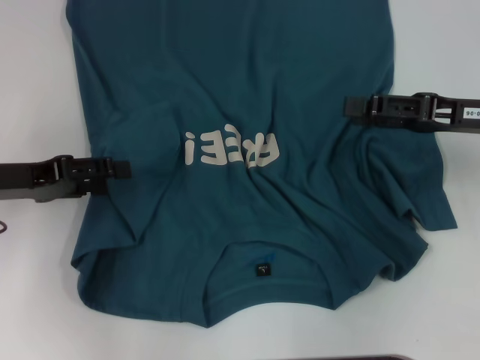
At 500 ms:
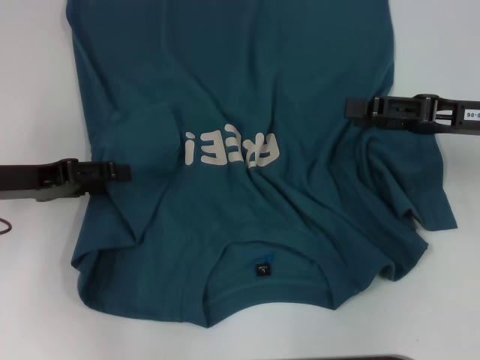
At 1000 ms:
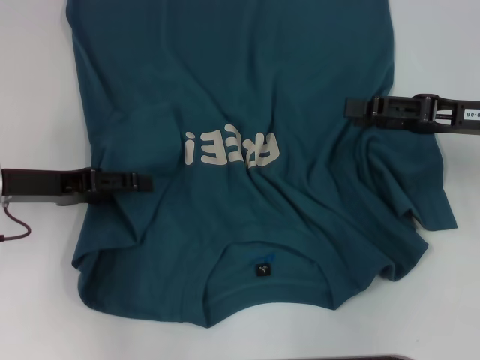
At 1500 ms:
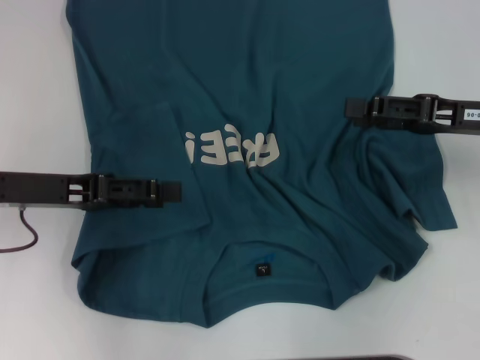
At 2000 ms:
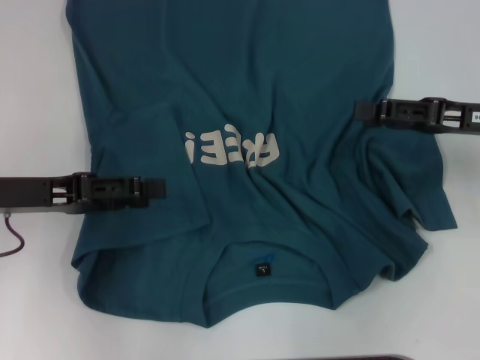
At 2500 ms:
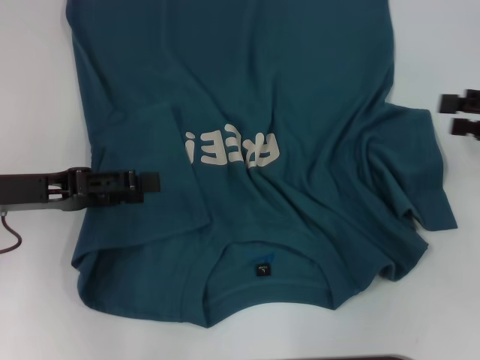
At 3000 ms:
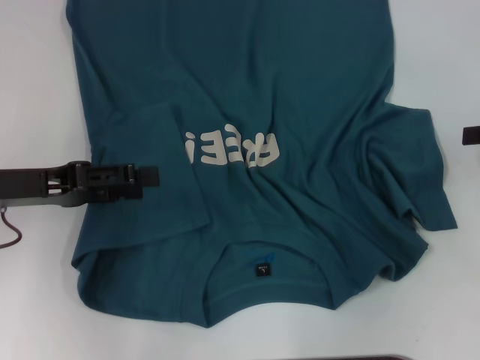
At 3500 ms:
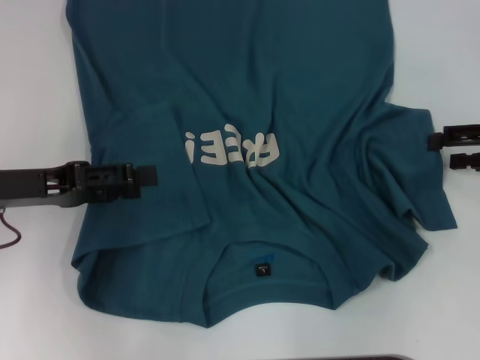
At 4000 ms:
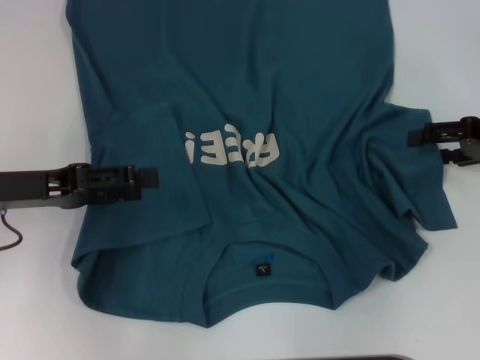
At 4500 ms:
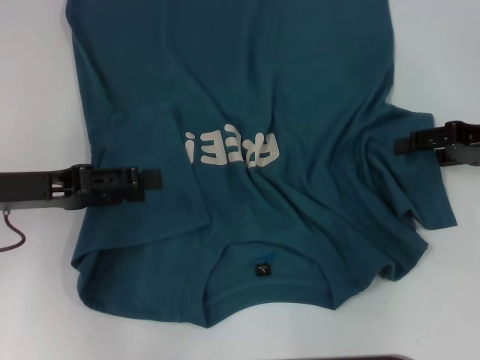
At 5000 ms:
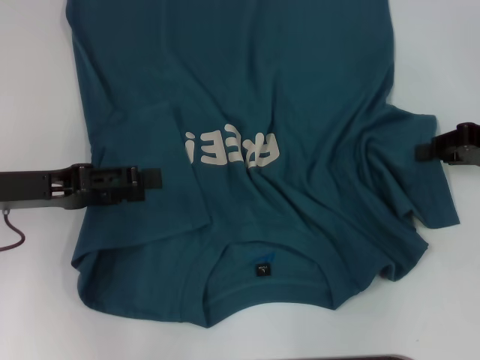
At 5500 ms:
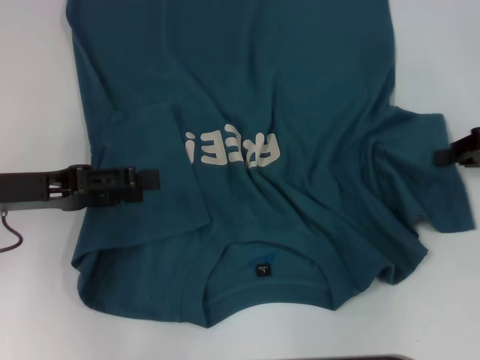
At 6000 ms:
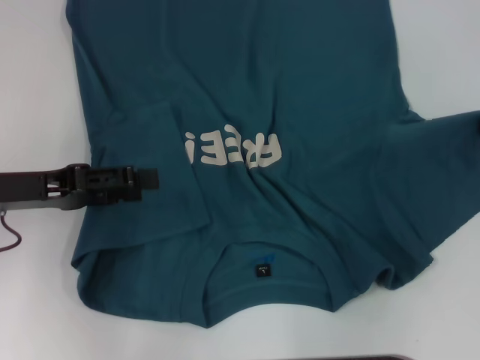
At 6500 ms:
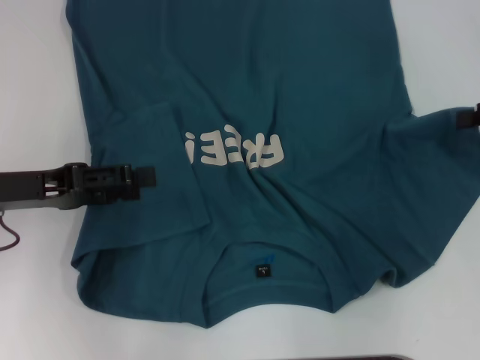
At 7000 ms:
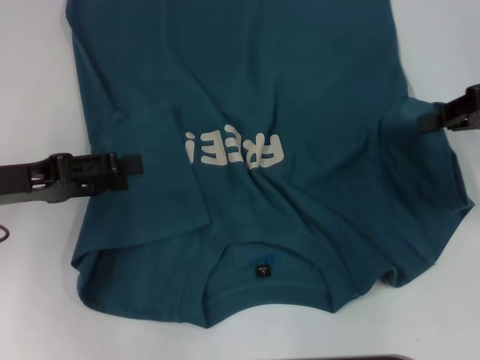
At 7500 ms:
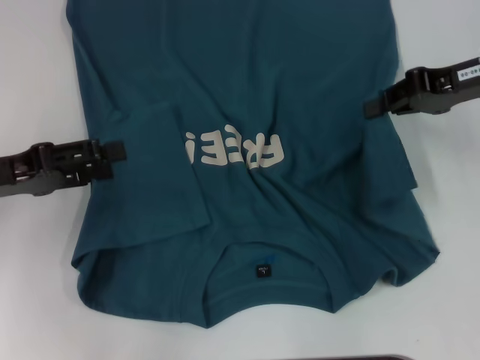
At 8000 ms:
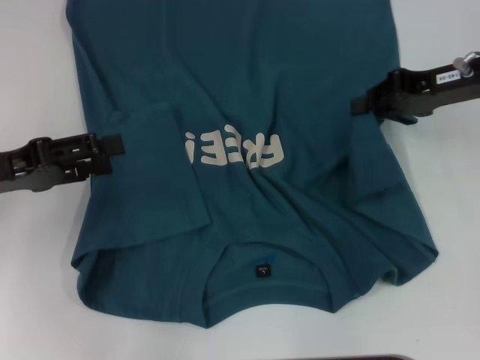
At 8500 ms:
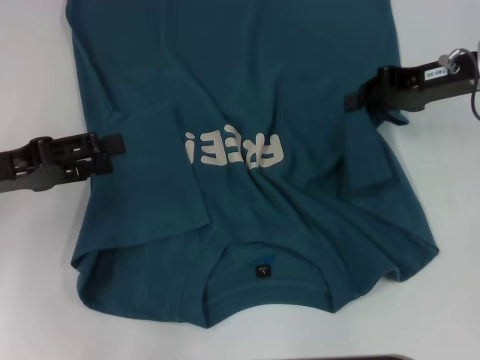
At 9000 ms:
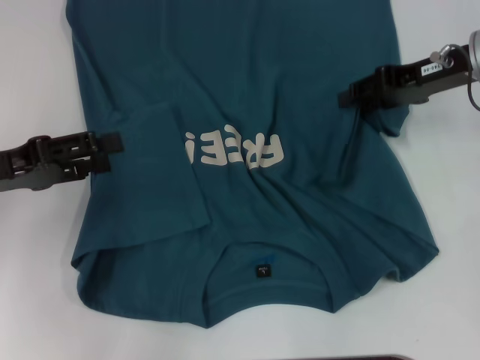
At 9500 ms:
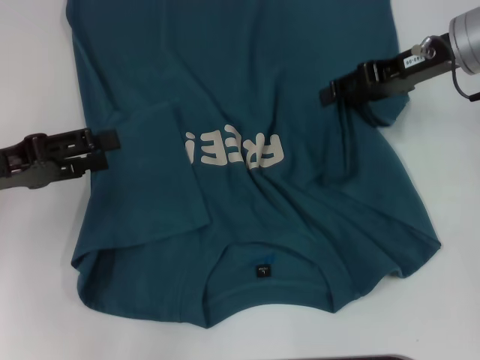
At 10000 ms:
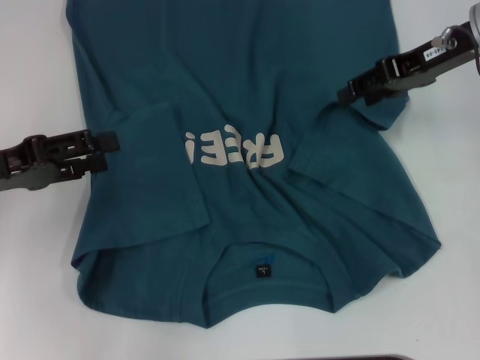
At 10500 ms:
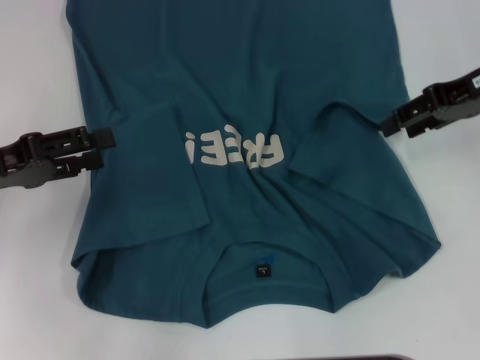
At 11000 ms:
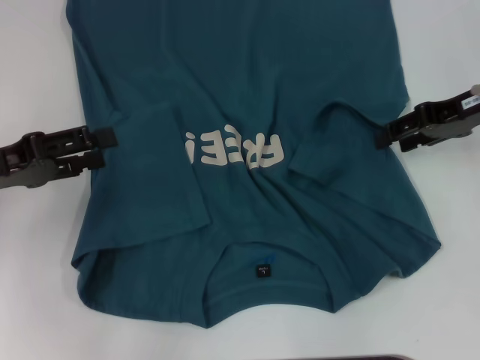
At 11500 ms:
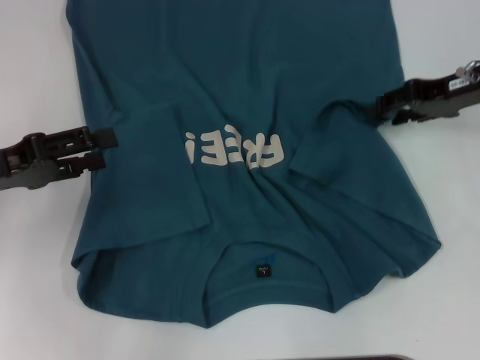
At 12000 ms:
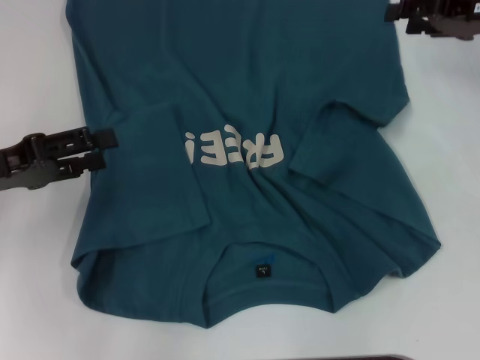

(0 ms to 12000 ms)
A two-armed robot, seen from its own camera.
0 ms - 2000 ms: The grippers stay close to where they were, moving slightly.
2000 ms - 4000 ms: The right gripper moves to the right, about 5 cm.
4000 ms - 6000 ms: The right gripper ends up about 5 cm from where it was, and closes up.
6000 ms - 8000 ms: The right gripper travels to the left and forward by some 15 cm.
8000 ms - 10000 ms: The right gripper changes place by roughly 5 cm, and opens.
10000 ms - 12000 ms: The right gripper heads to the right, covering some 5 cm.

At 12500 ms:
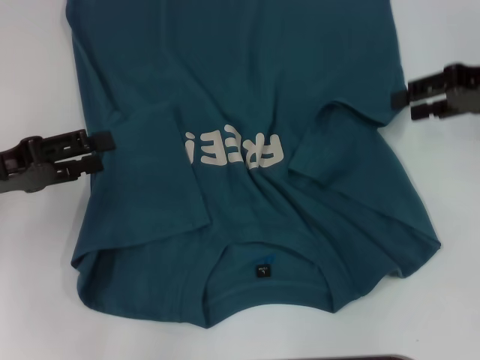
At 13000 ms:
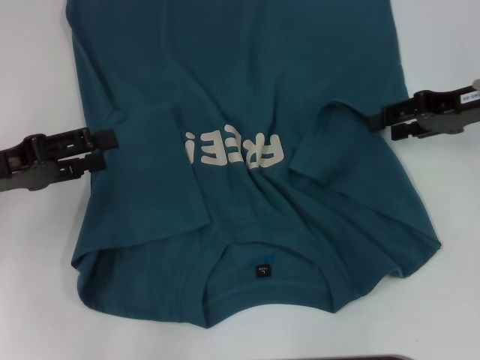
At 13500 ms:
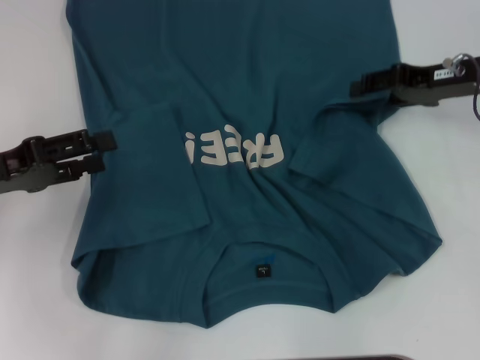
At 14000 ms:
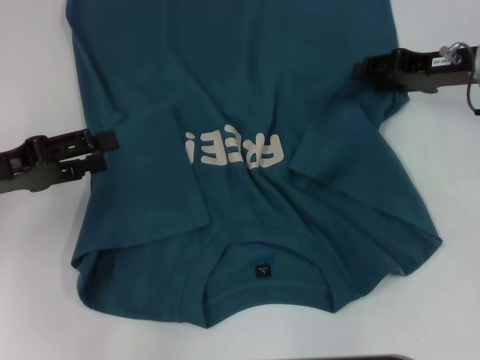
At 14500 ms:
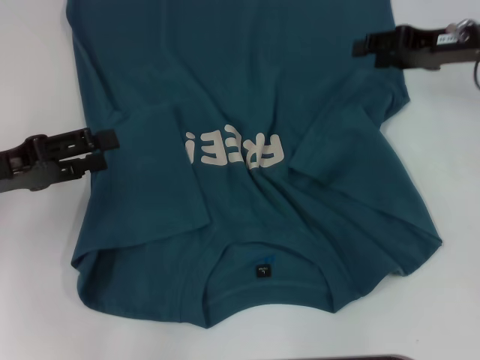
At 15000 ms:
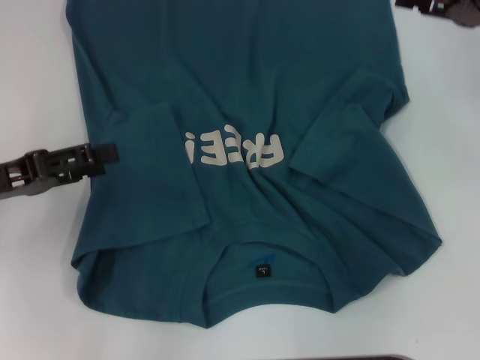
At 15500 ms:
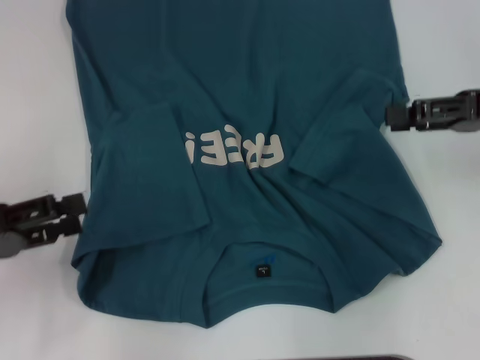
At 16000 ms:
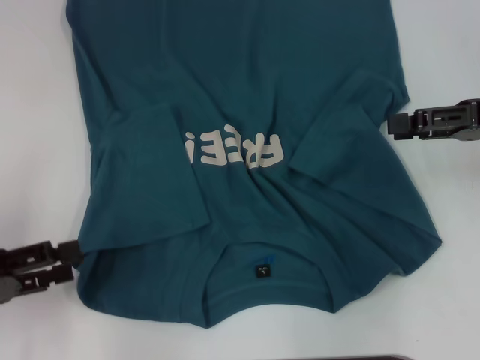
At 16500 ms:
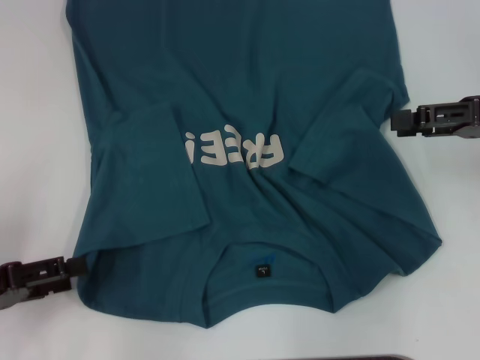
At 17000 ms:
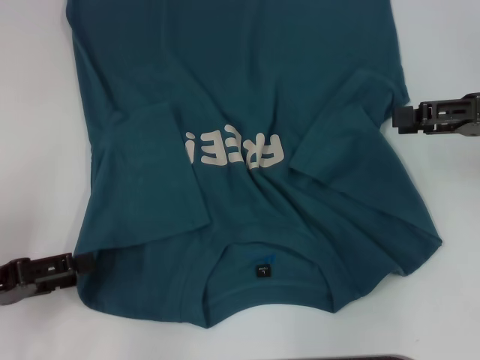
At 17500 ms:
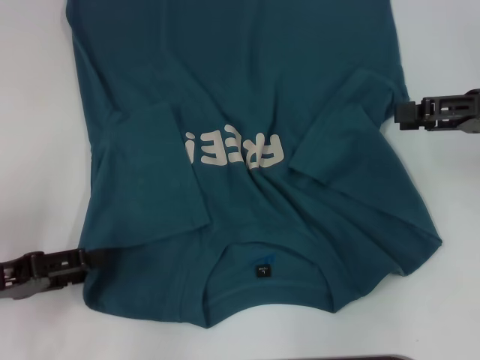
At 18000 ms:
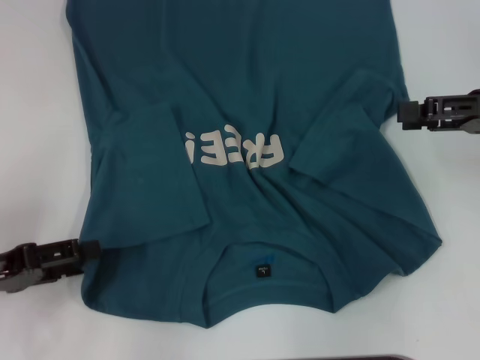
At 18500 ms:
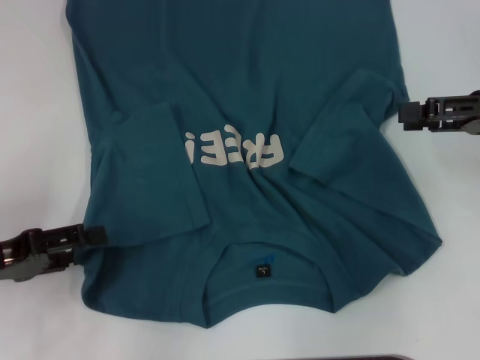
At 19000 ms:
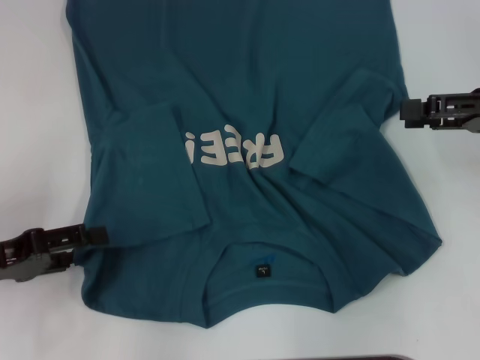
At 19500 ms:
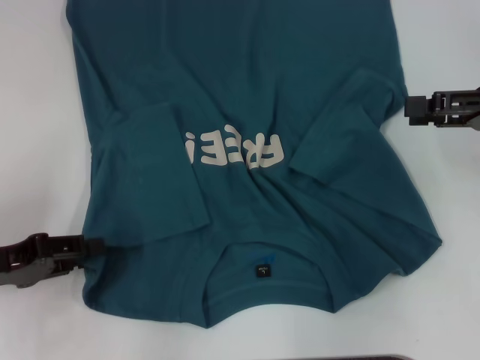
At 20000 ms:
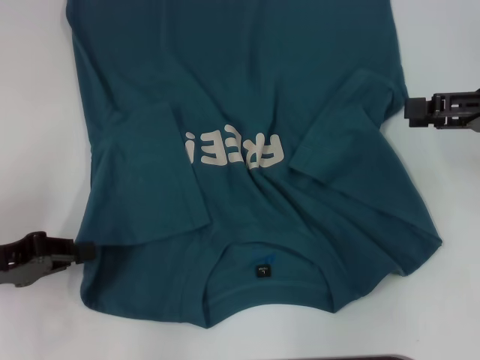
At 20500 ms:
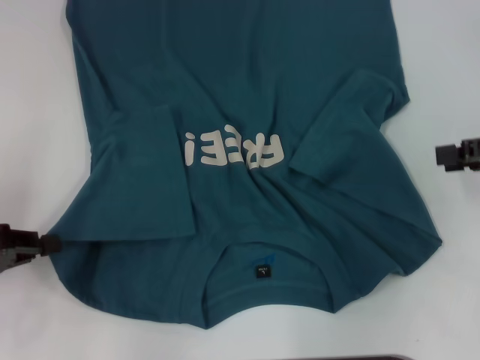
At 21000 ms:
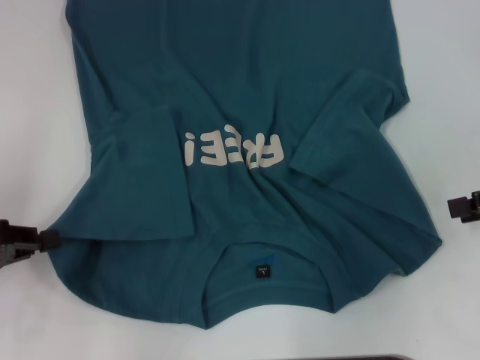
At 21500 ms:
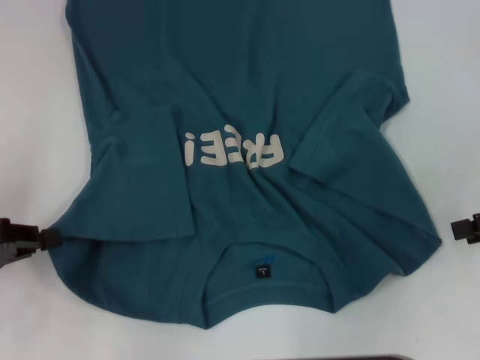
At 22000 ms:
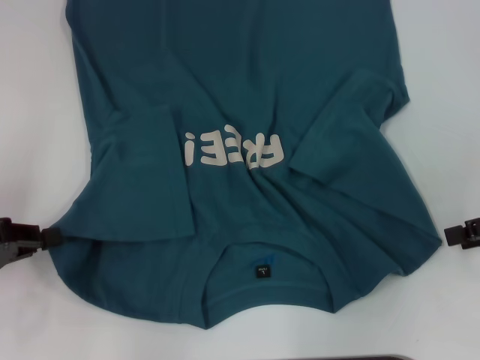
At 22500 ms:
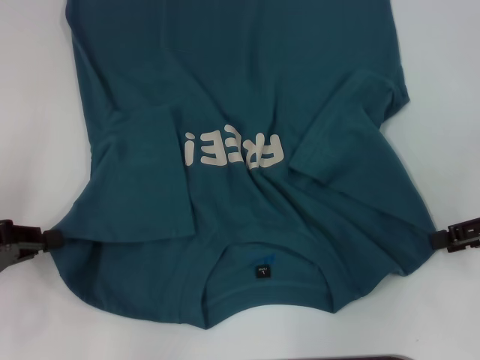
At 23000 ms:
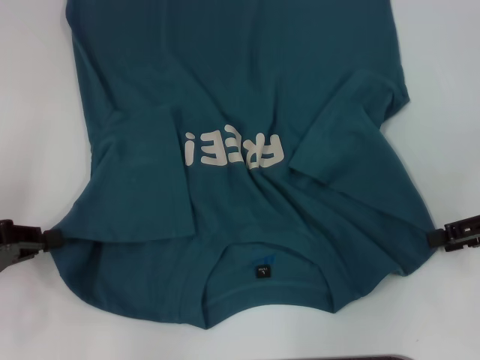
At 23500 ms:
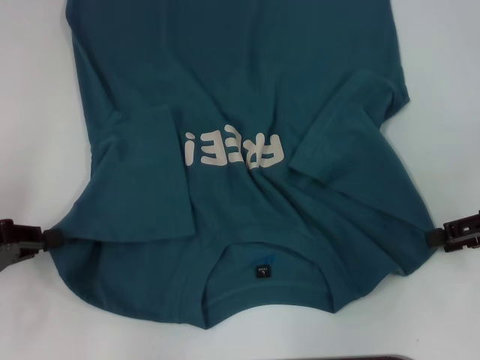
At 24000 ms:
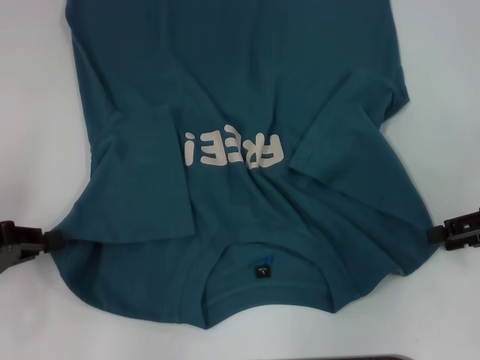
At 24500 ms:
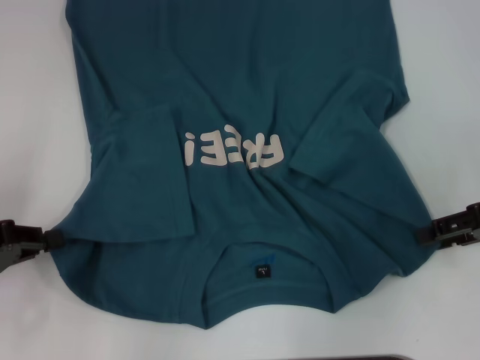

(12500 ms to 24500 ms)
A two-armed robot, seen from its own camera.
Step, 14500 ms - 19500 ms: Grab the bottom left corner with your left hand.
12500 ms - 14500 ms: The right gripper ends up about 5 cm from where it was.
14500 ms - 16500 ms: The two grippers go roughly 10 cm backward.
16500 ms - 18500 ms: There are only small adjustments of the grippers.
18500 ms - 20500 ms: The left gripper closes up.
20500 ms - 22500 ms: The grippers make only small movements.

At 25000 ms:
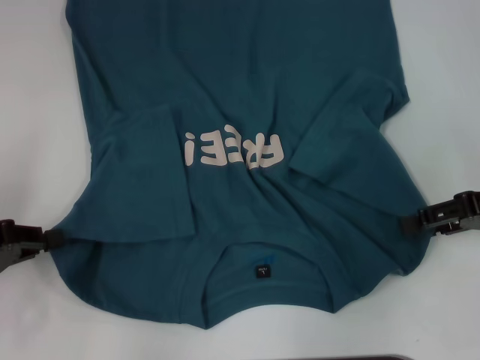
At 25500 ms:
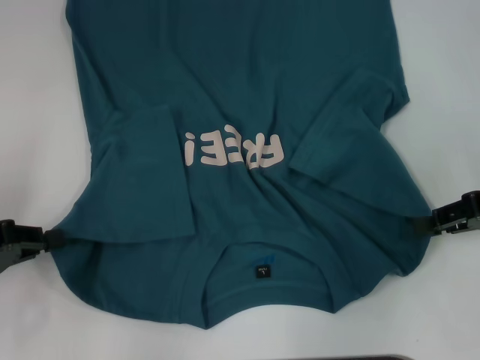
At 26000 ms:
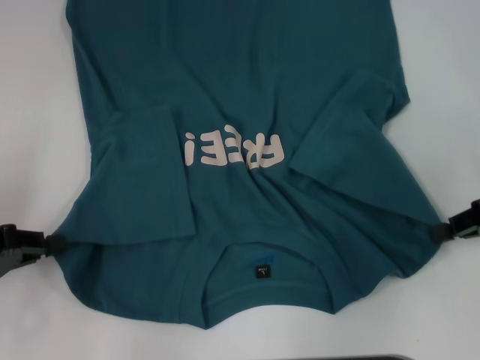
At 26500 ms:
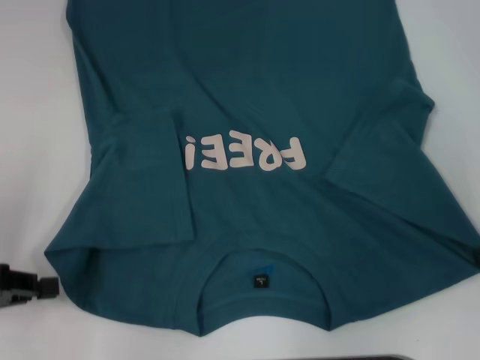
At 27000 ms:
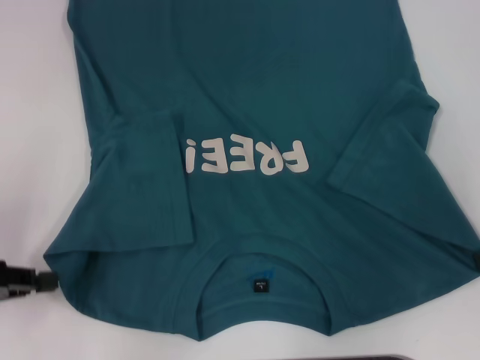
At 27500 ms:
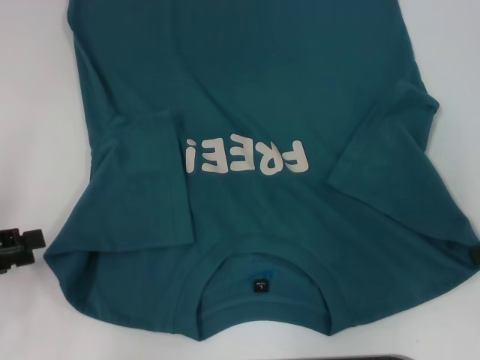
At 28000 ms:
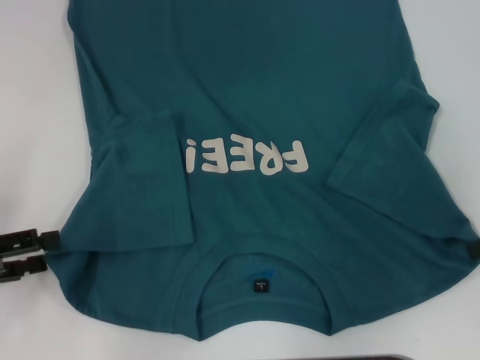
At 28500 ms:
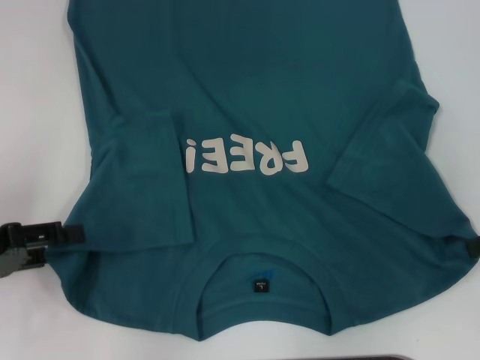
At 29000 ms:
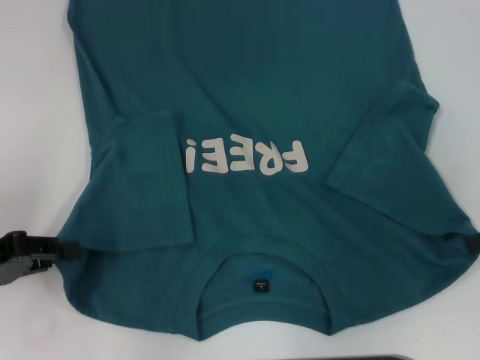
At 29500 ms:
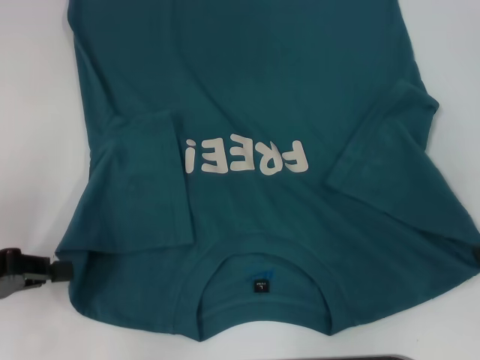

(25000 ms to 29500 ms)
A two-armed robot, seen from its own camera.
25000 ms - 27000 ms: The right gripper closes up.
27000 ms - 29500 ms: The left gripper opens, then closes again.
